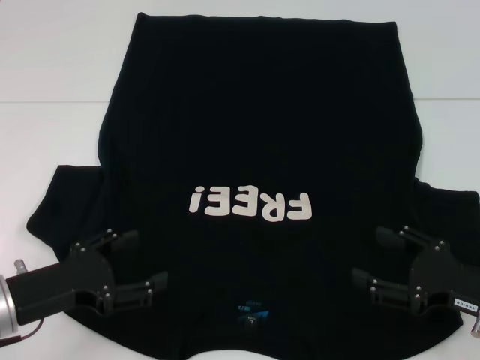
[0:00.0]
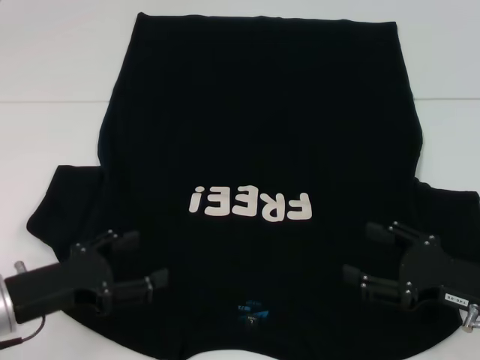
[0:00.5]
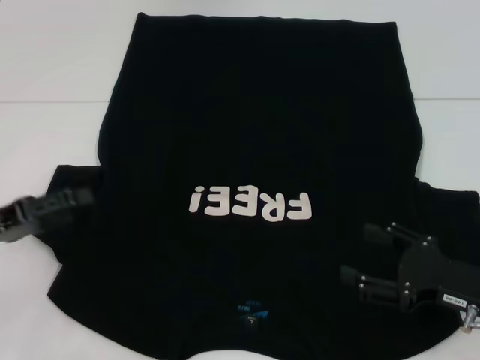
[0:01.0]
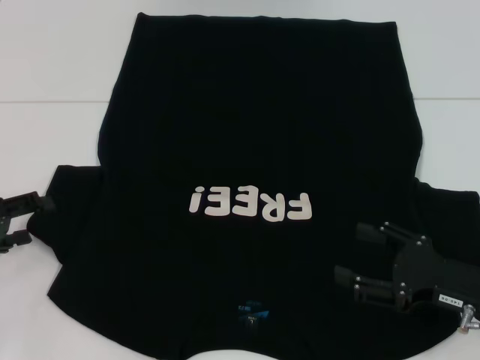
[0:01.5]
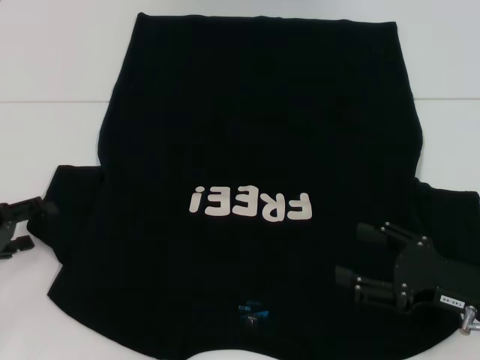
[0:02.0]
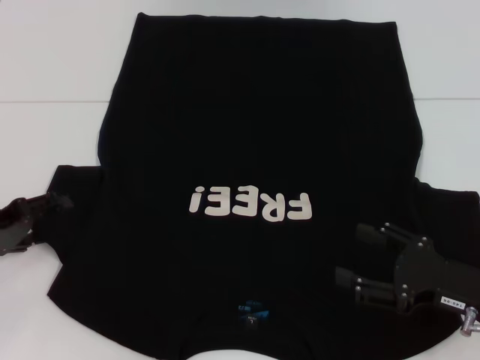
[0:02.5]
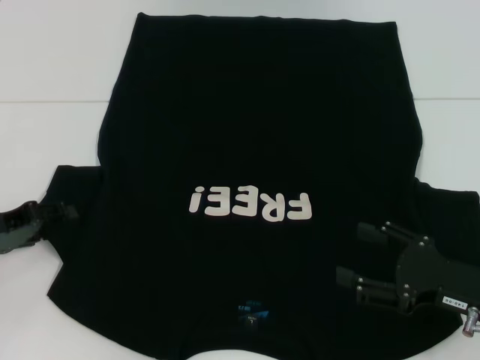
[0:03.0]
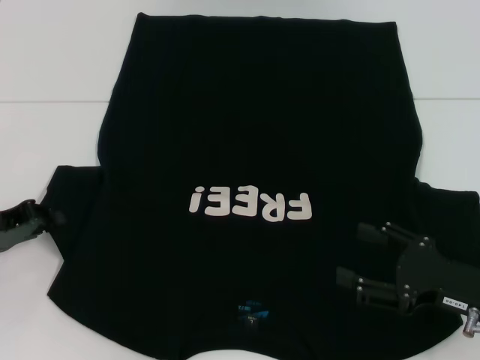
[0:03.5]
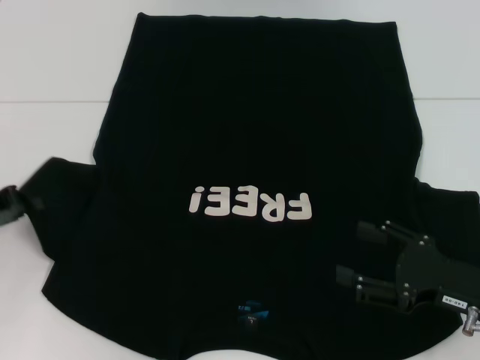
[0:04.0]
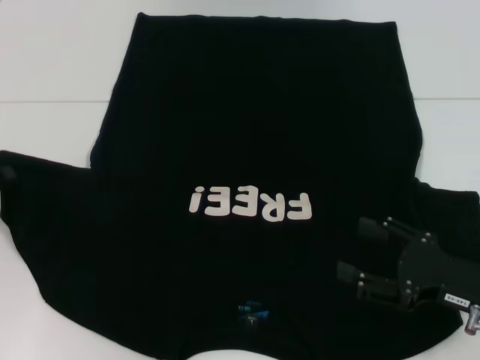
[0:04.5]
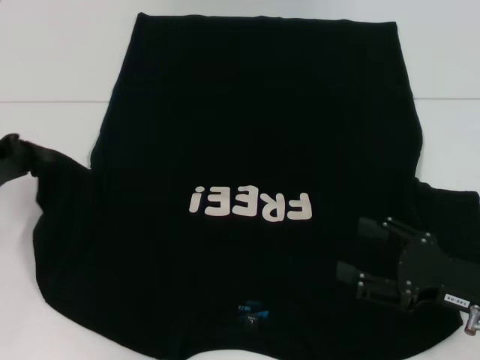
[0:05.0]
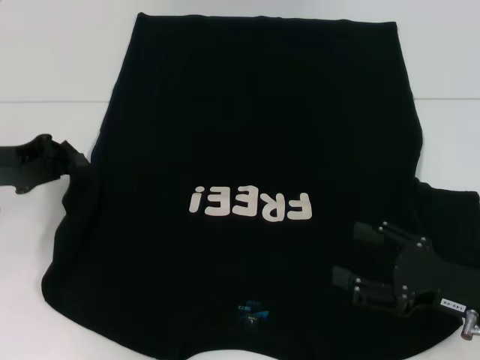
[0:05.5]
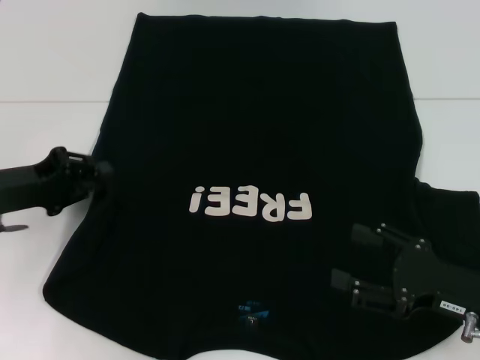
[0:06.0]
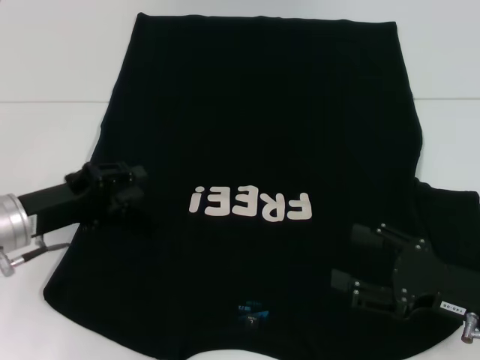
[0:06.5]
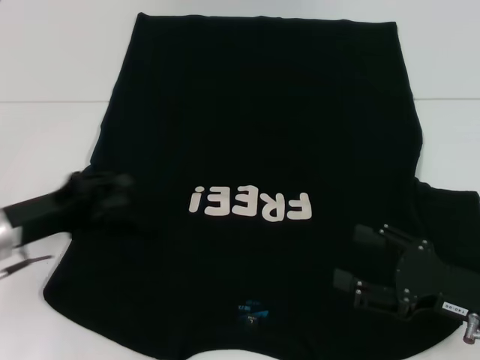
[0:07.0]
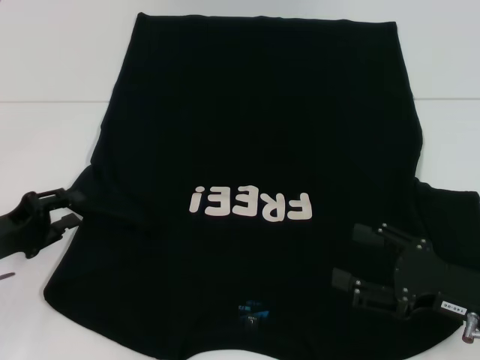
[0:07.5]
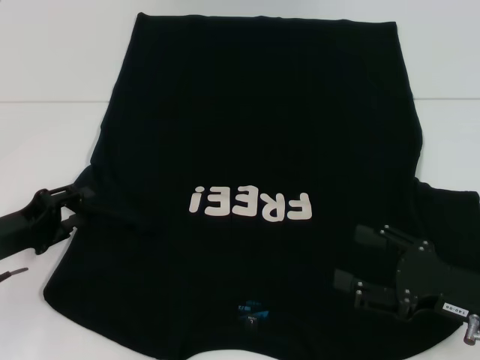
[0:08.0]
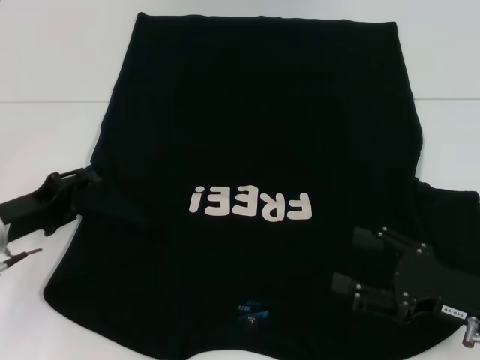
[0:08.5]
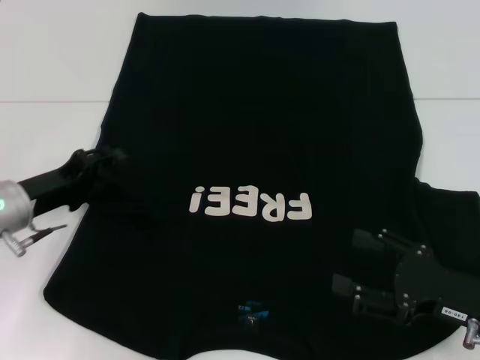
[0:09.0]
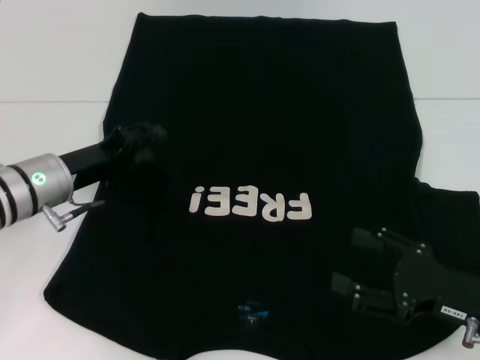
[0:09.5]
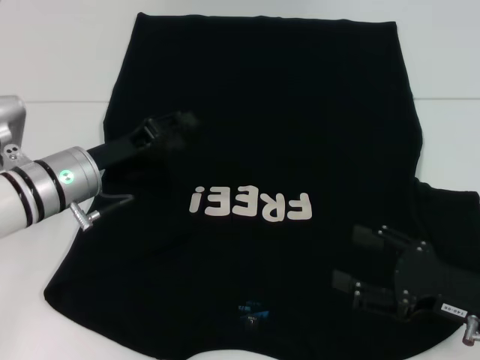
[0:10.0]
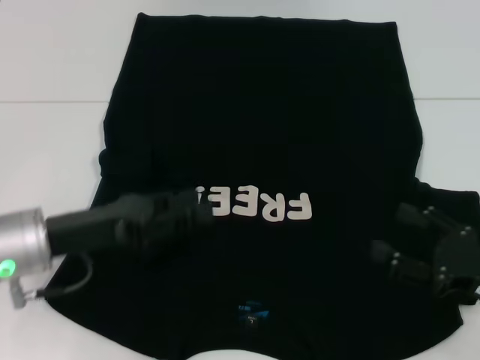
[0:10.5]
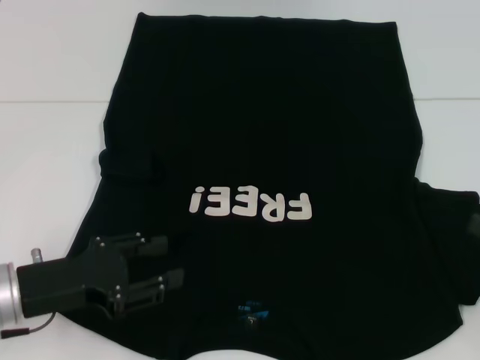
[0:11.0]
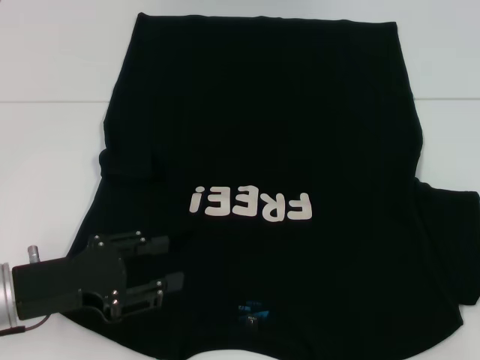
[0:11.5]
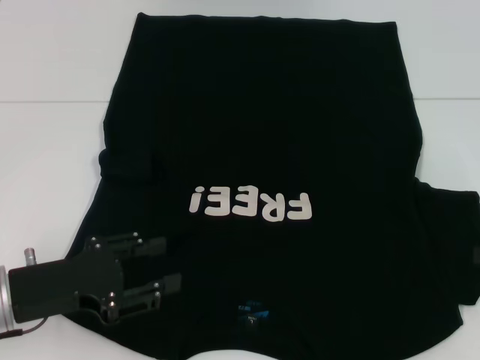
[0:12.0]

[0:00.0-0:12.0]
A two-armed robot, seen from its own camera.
Step, 0.0 to 10.5 s: Fold the bottom left sleeve with your left hand.
0.0 to 2.0 s: The left gripper moves to the left and forward, about 10 cm.
2.0 to 4.0 s: The left gripper closes its fingers.
4.0 to 6.0 s: The left gripper moves some 5 cm.
6.0 to 8.0 s: The left gripper travels downward by about 5 cm, and opens up.
8.0 to 10.0 s: The left gripper shifts approximately 15 cm to the right and forward.
10.0 to 12.0 s: The right gripper shifts approximately 15 cm to the right, upward and forward. Meanwhile the left gripper shifts about 15 cm backward and to the left.

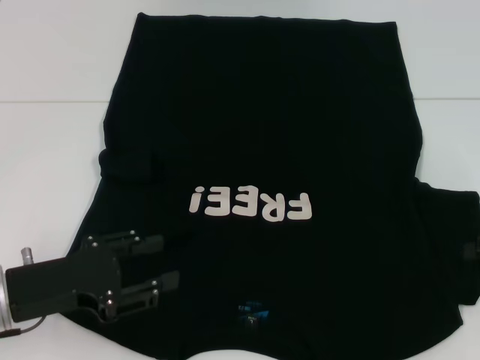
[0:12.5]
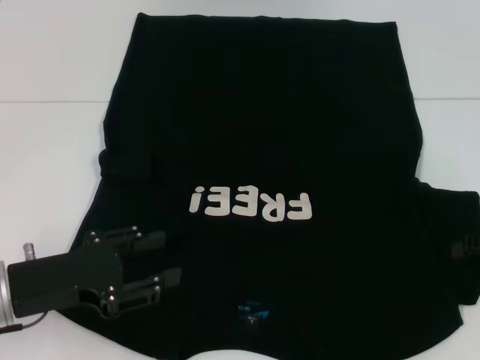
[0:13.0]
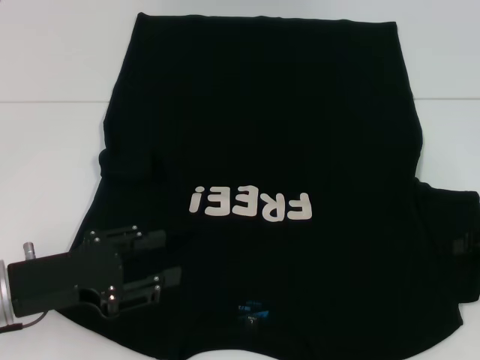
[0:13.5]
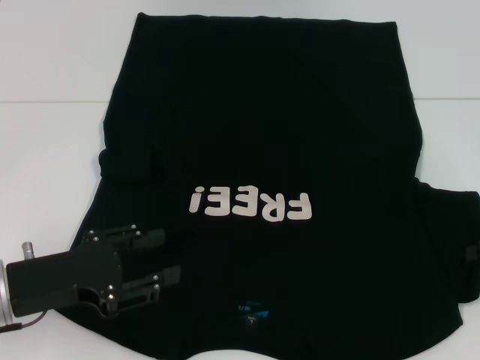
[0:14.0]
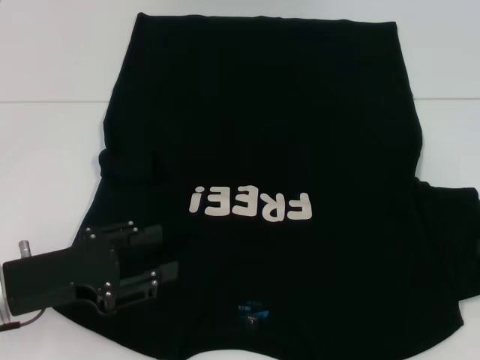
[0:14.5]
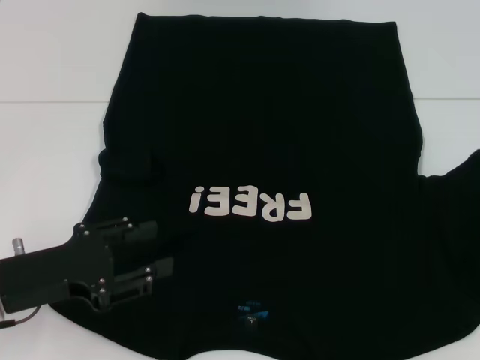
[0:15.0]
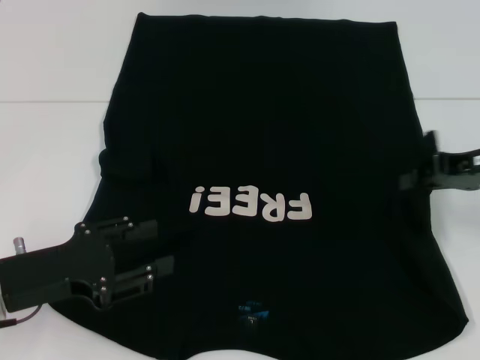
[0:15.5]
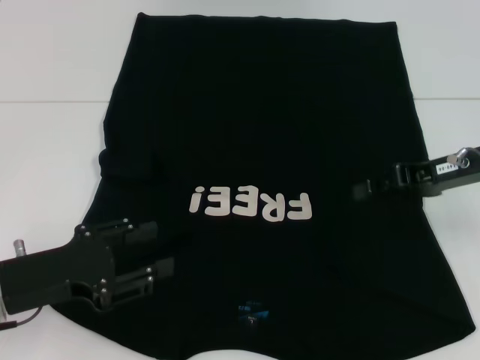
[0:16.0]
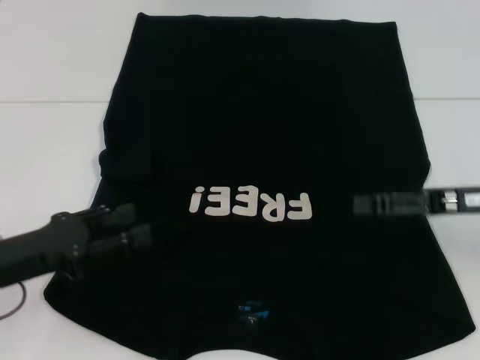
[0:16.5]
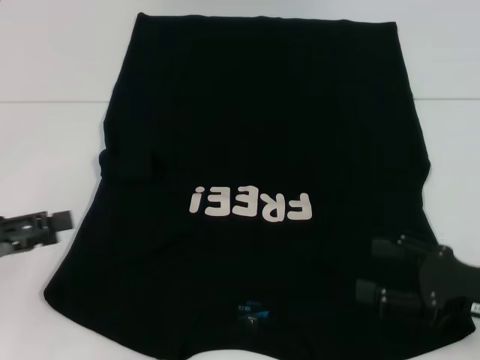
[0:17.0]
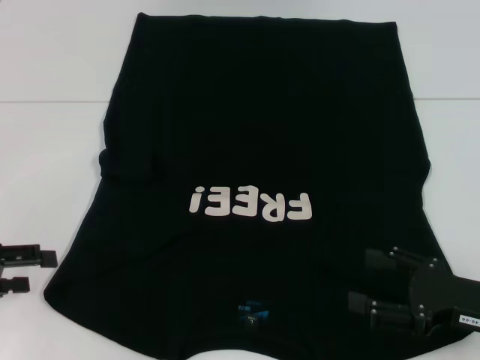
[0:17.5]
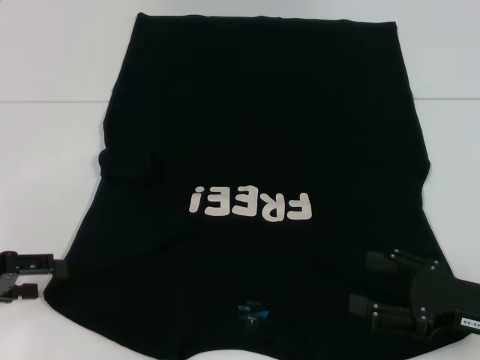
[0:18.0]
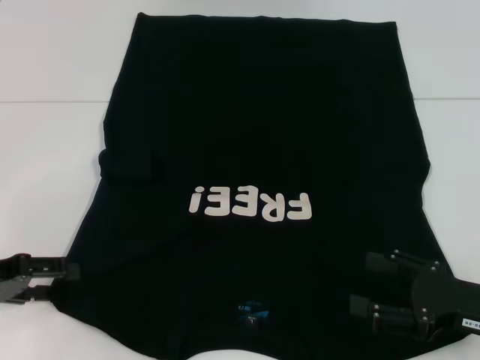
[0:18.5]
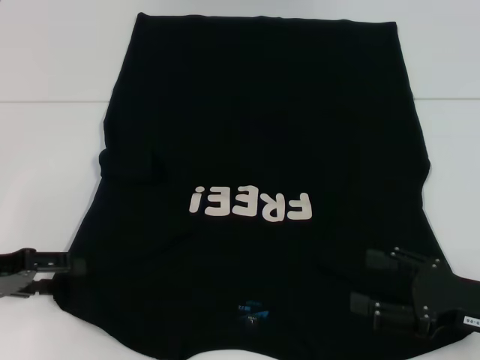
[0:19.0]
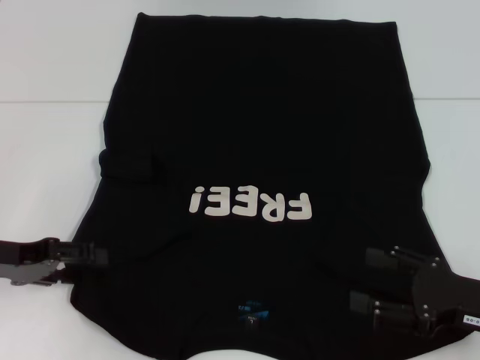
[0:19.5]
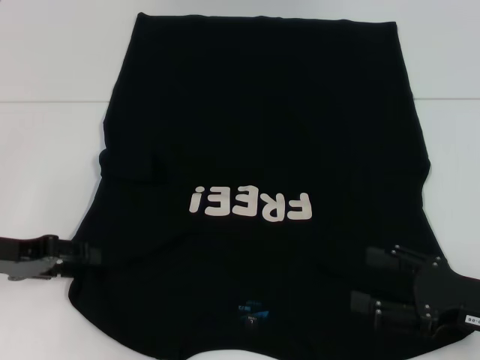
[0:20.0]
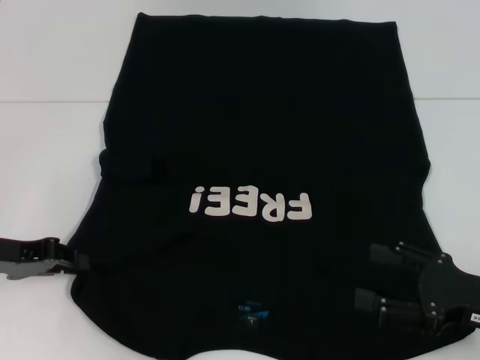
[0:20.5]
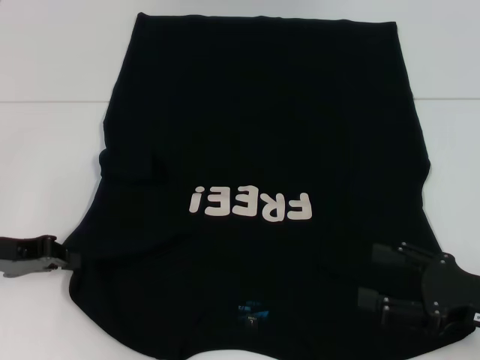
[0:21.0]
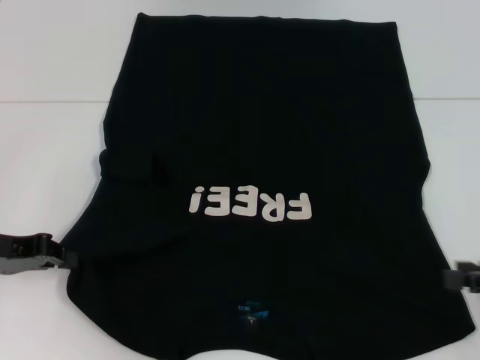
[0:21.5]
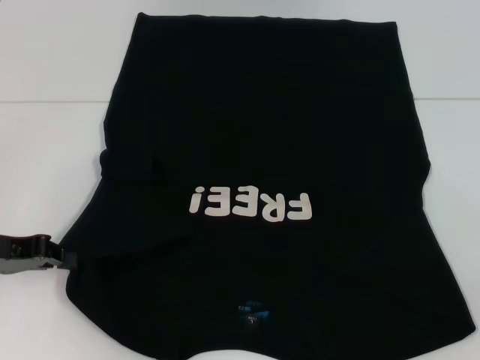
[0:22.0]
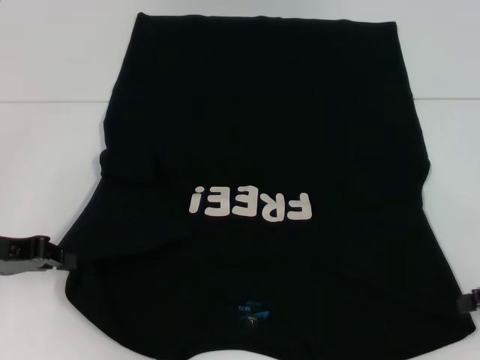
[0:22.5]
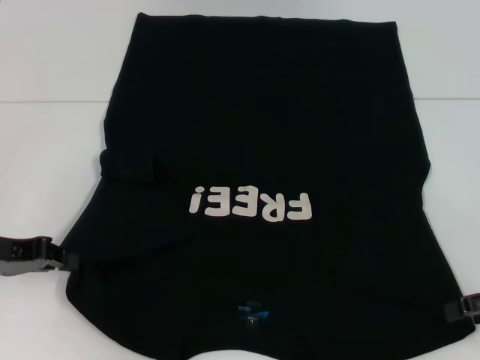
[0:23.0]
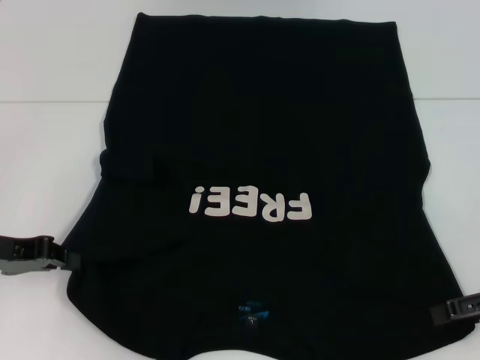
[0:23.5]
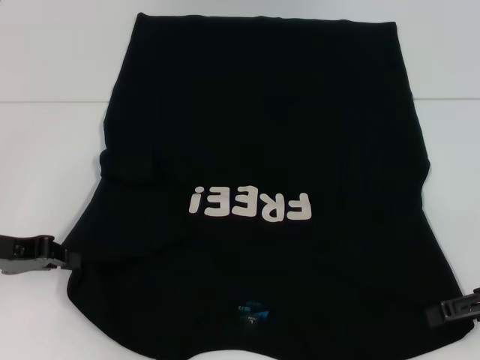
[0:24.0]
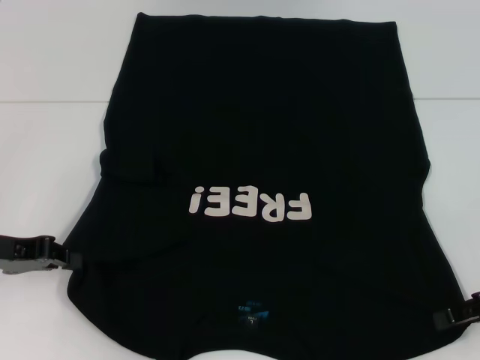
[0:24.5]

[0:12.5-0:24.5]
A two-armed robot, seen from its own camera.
Step, 12.5 to 16.0 s: Fold the bottom right sleeve with your right hand.
14.5 to 16.5 s: The right gripper heads to the left, covering roughly 10 cm, and opens up.
16.5 to 18.5 s: The right gripper goes some 15 cm backward and downward. The left gripper goes about 5 cm to the left.
18.5 to 20.5 s: The left gripper closes its fingers.
20.5 to 22.5 s: The right gripper is displaced to the right, upward and forward by some 10 cm, while the left gripper closes its fingers.
22.5 to 24.5 s: There are only small adjustments of the grippers.

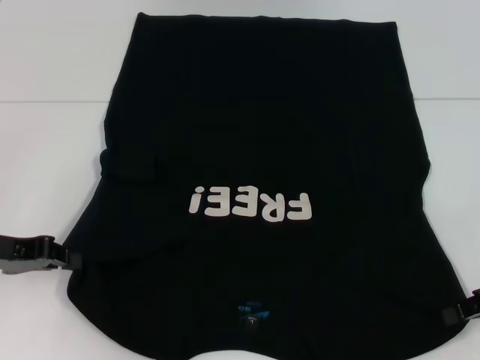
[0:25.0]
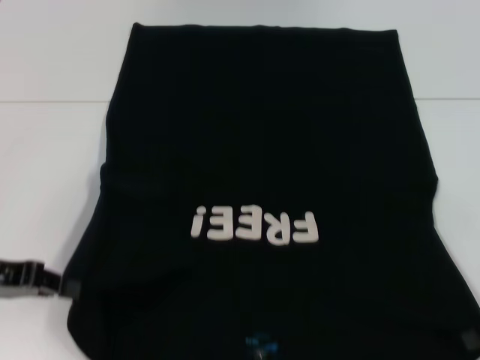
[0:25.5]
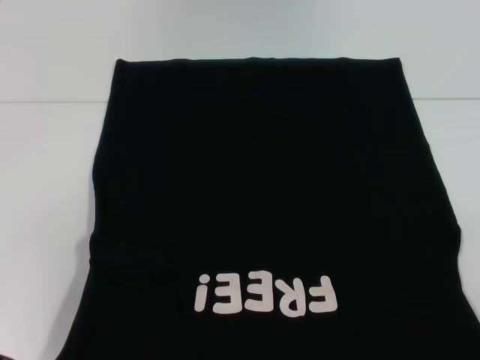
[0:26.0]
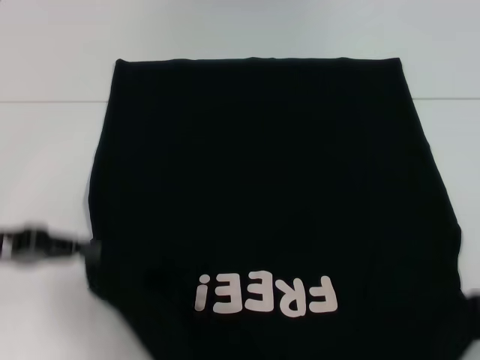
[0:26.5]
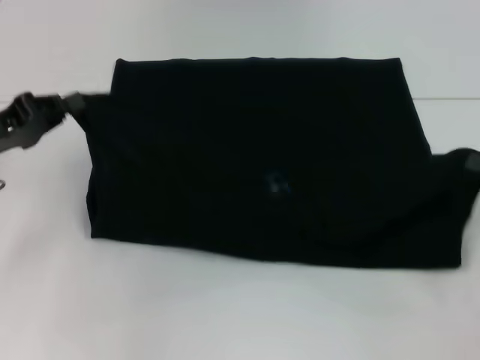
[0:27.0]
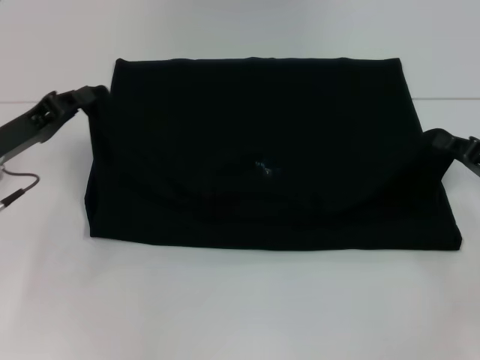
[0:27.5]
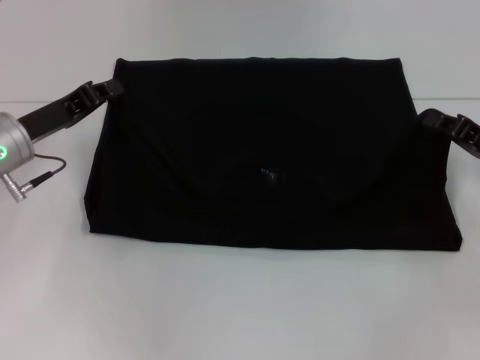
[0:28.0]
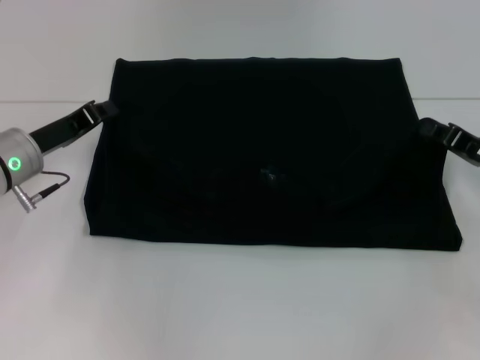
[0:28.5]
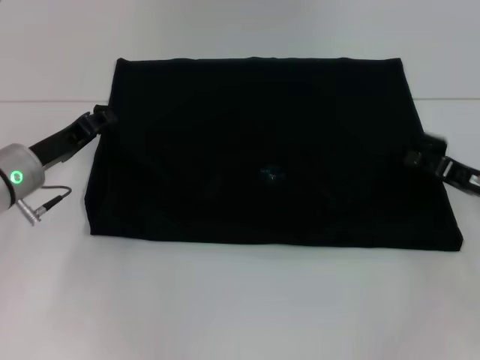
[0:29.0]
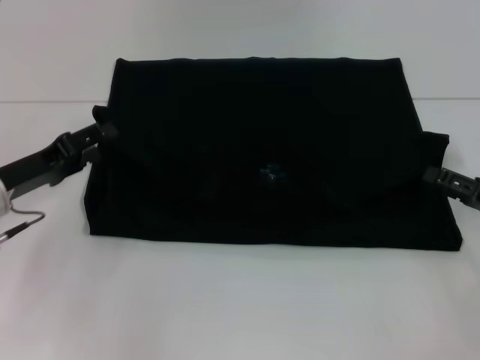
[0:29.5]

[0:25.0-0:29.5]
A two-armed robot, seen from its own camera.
25.0 to 27.0 s: The left gripper moves some 5 cm backward and comes back.
27.0 to 29.5 s: The left gripper opens its fingers. Meanwhile the right gripper opens.
